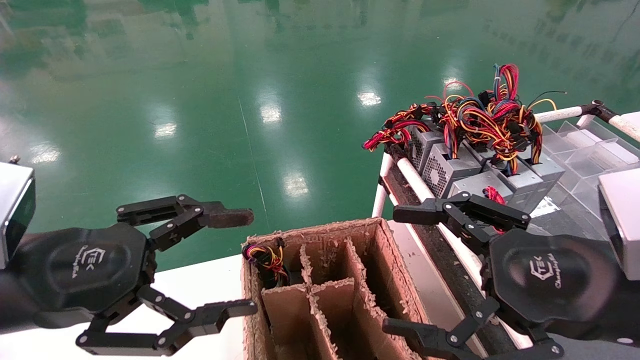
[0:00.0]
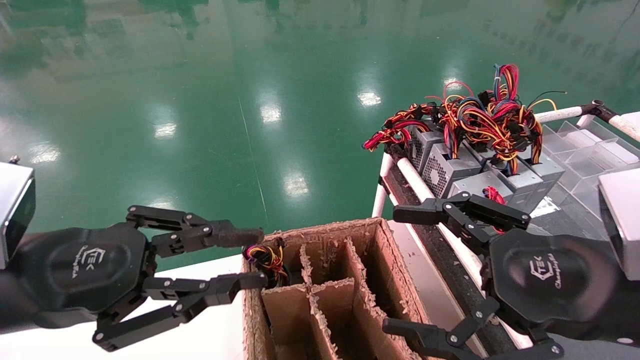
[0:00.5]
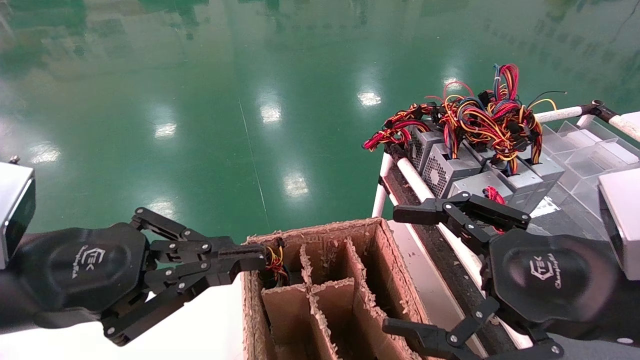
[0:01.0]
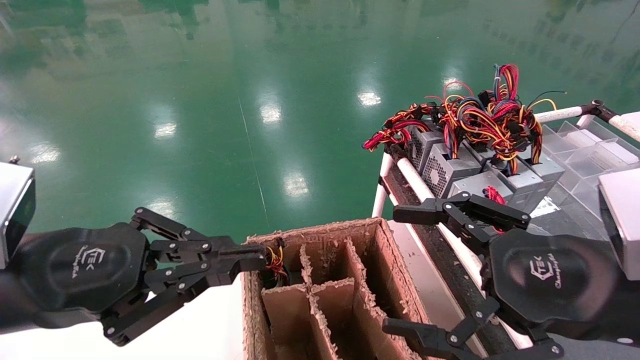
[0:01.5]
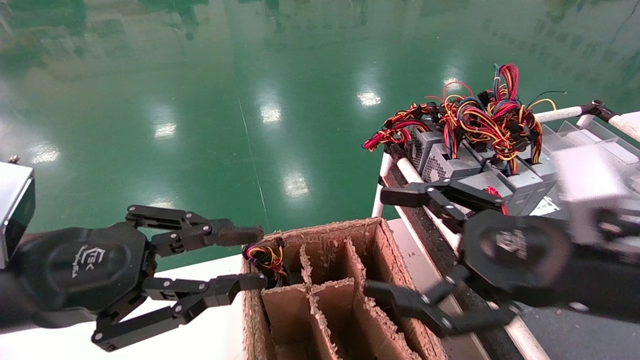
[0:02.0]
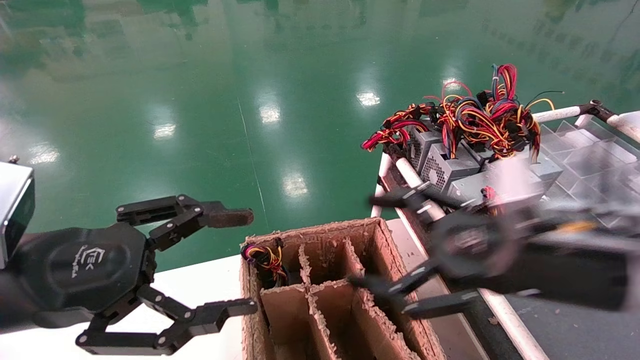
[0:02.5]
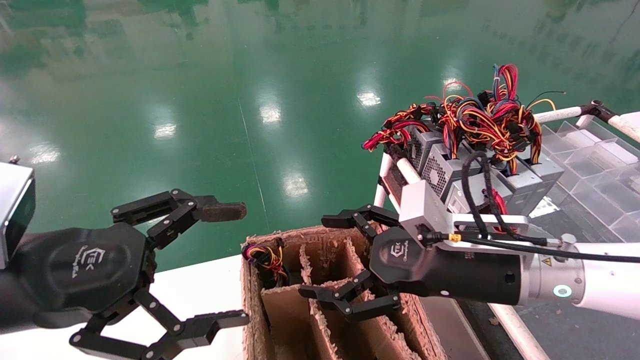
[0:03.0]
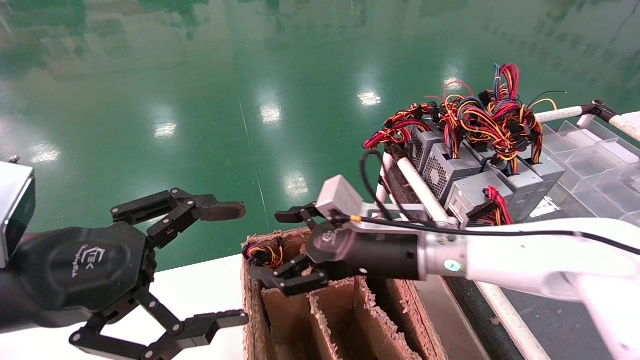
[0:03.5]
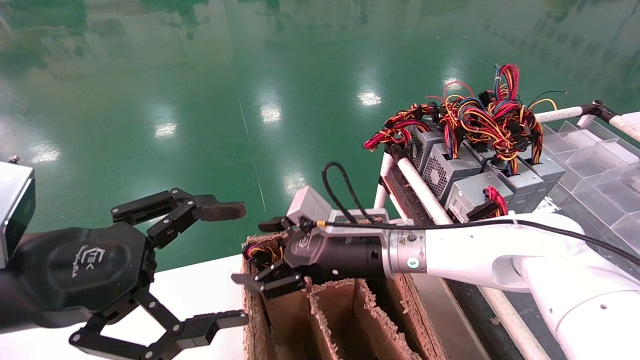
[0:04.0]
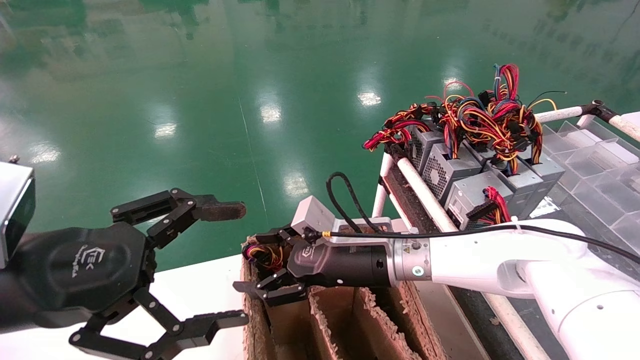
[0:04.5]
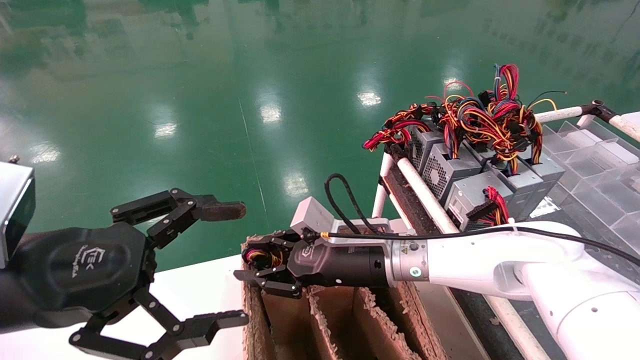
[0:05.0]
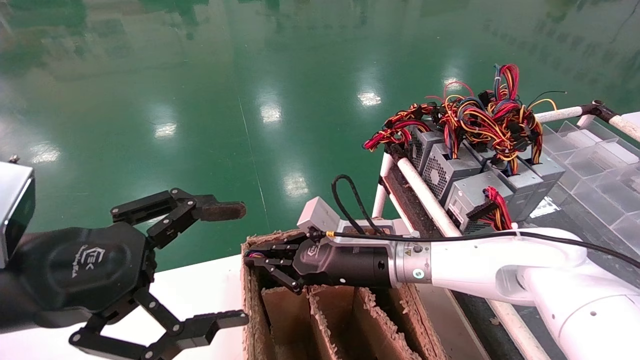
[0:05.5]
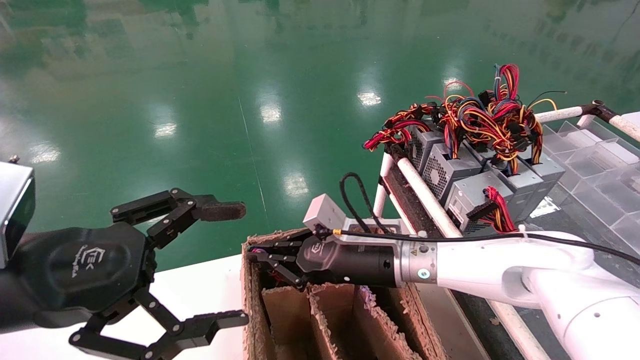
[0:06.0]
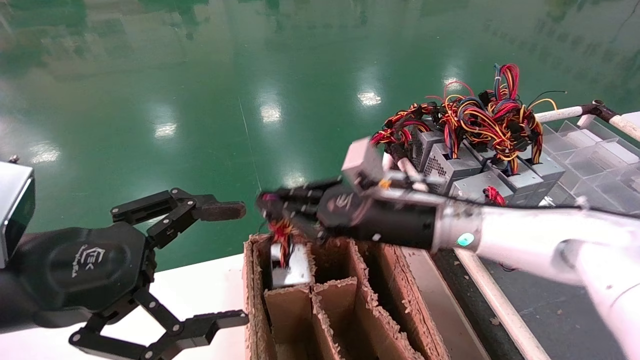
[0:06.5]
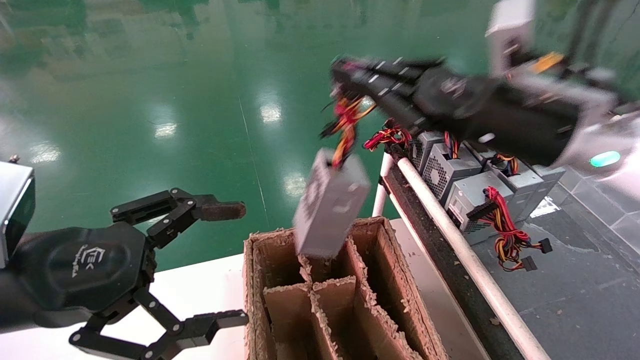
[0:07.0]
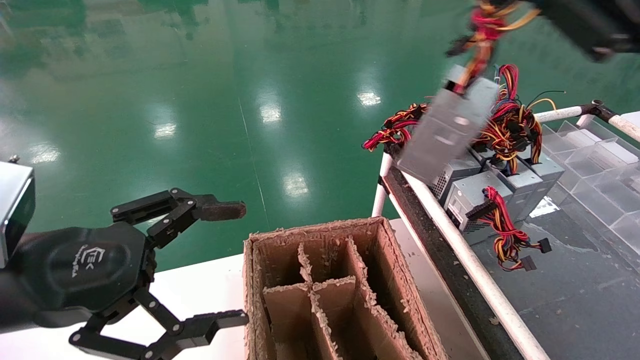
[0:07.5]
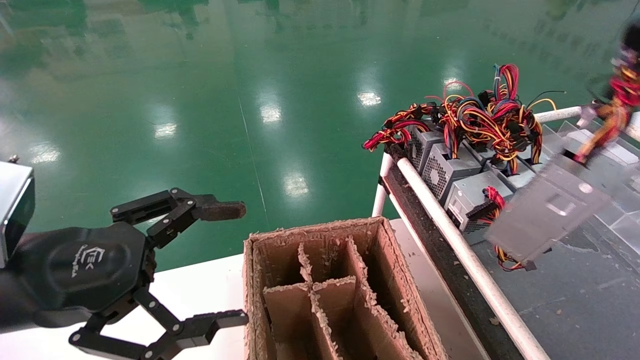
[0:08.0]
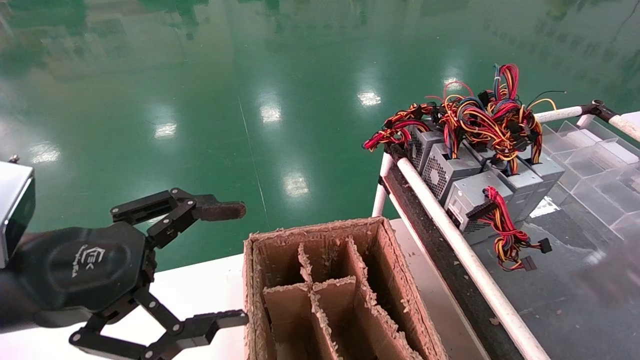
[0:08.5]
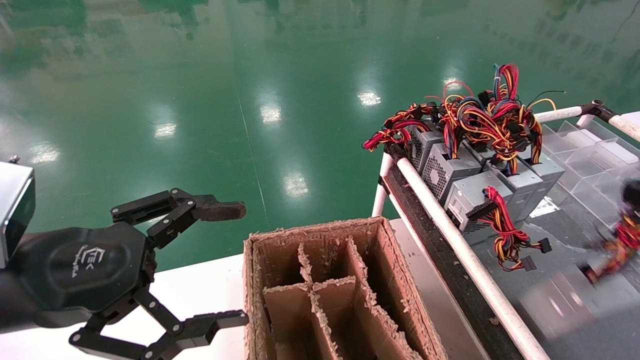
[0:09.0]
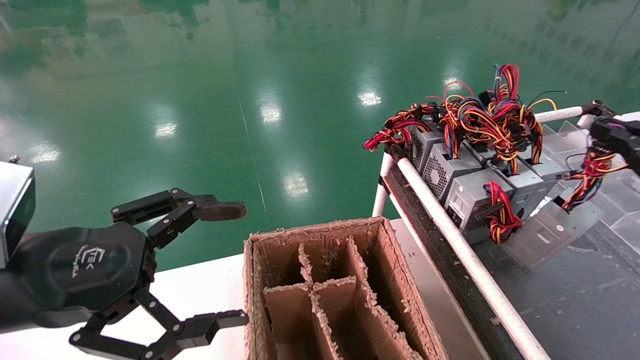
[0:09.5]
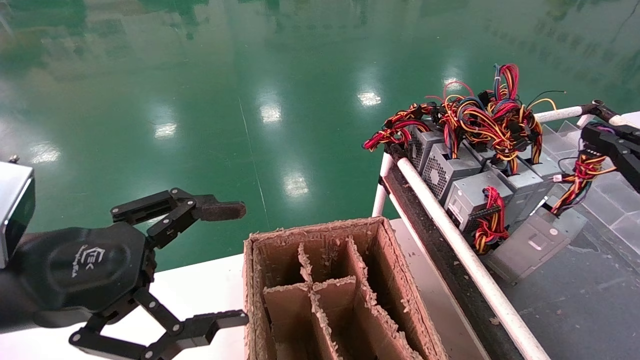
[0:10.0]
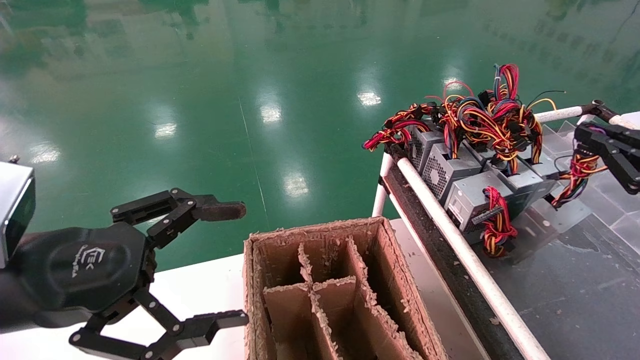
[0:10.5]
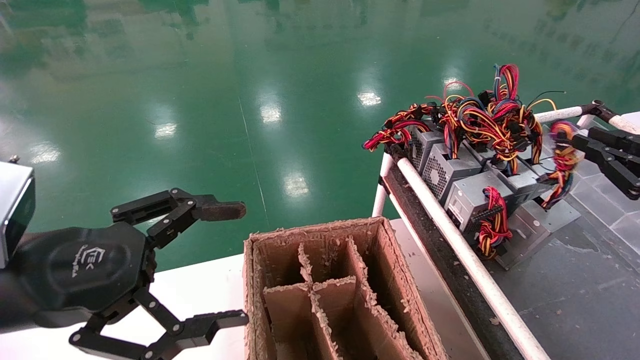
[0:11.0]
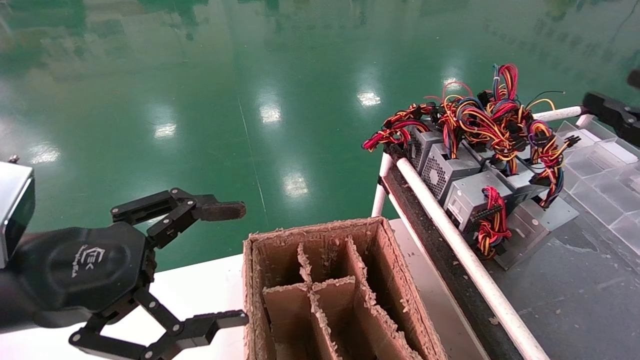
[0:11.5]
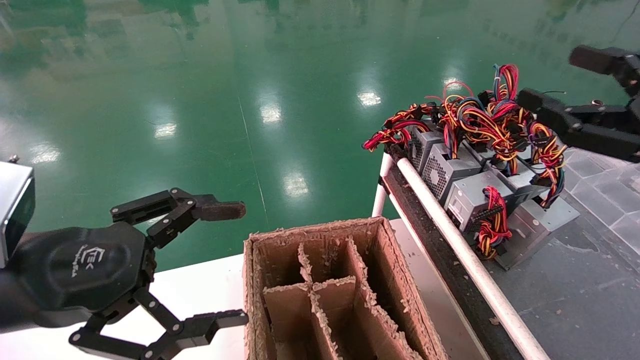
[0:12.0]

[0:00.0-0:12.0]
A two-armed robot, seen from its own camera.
Step, 0:01.5 to 0:05.5: Grab and lift the power supply from the large box.
Step, 0:06.0 to 0:11.0: Place the power supply on the operating table.
0:00.0 to 0:02.0: The left gripper closes.
0:02.0 to 0:04.0: The right gripper shifts some 25 cm to the left, forward and downward; the left gripper opens up.
0:04.0 to 0:06.0: The right gripper closes up.
0:06.0 to 0:08.0: The right gripper heads to the right, backward and upward, covering approximately 50 cm.
0:08.0 to 0:10.0: The right gripper travels downward and forward by some 15 cm.
0:10.0 to 0:12.0: The right gripper is displaced to the left by roughly 5 cm, and opens its fingers.

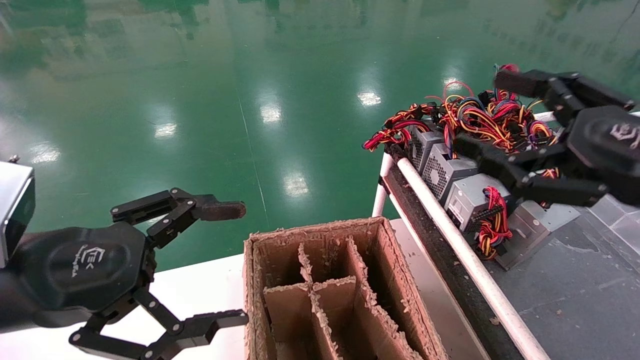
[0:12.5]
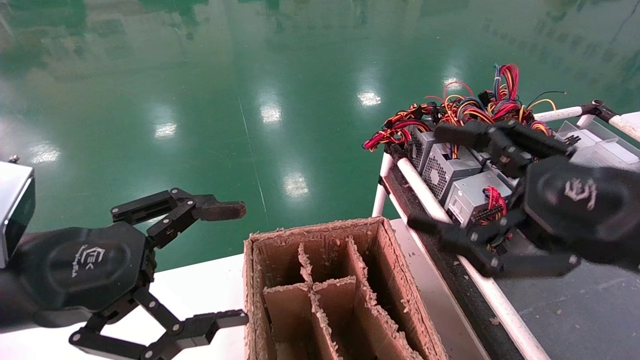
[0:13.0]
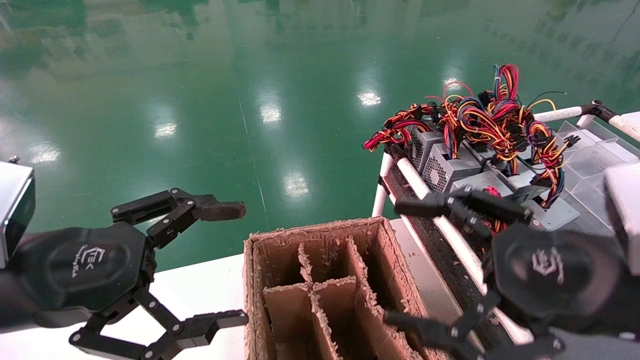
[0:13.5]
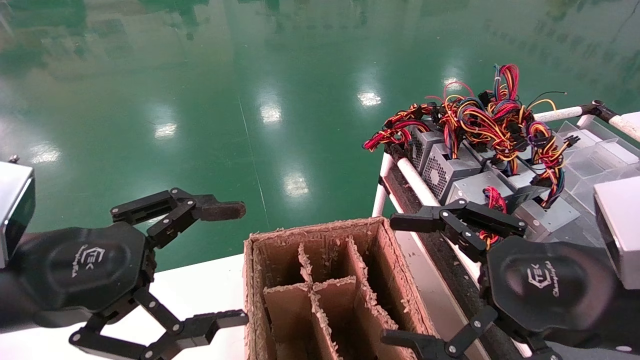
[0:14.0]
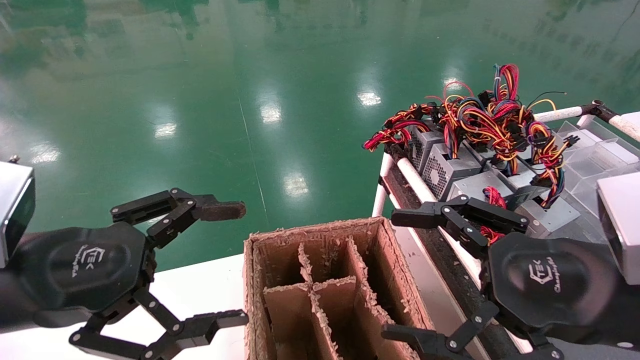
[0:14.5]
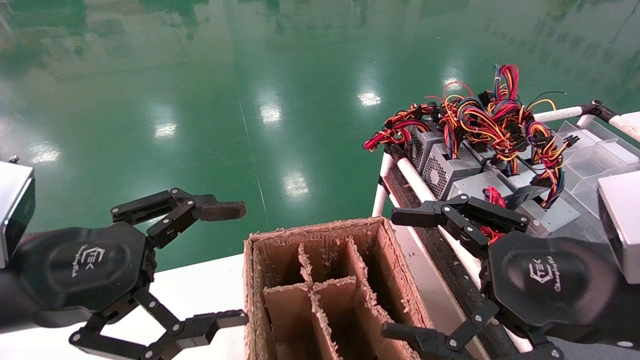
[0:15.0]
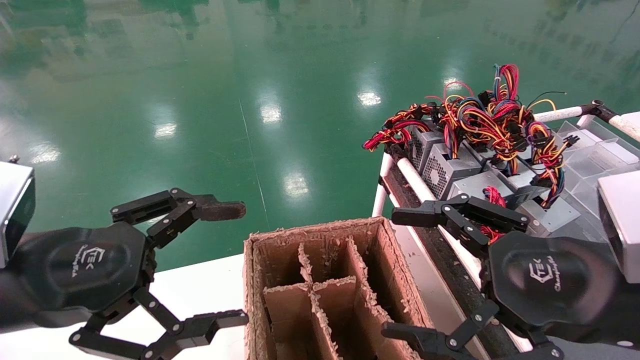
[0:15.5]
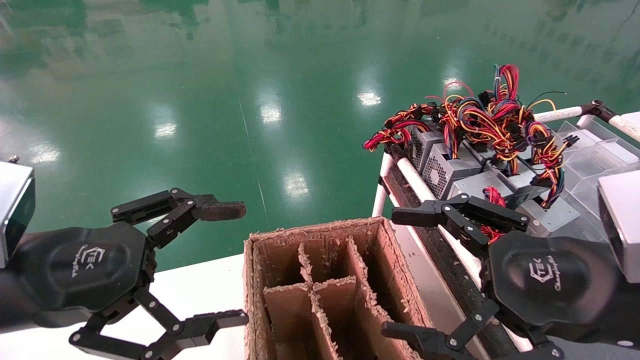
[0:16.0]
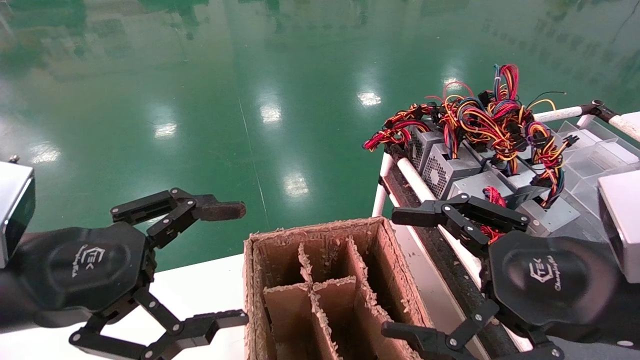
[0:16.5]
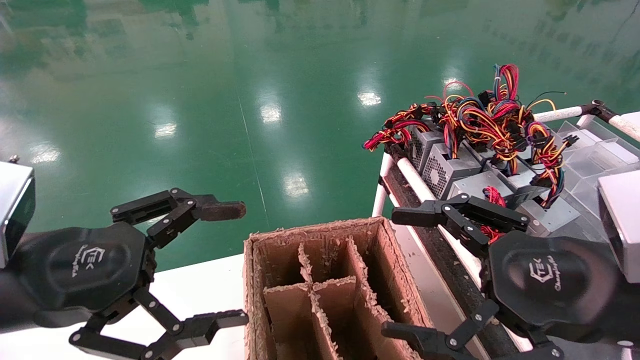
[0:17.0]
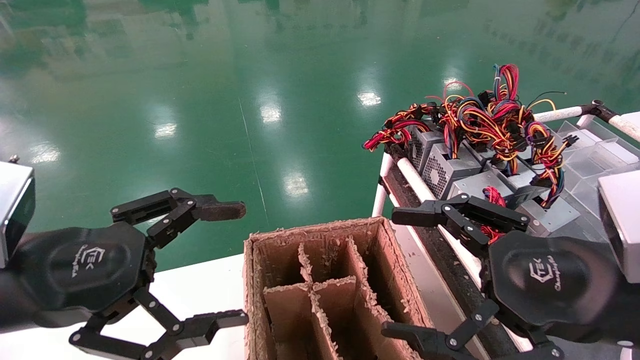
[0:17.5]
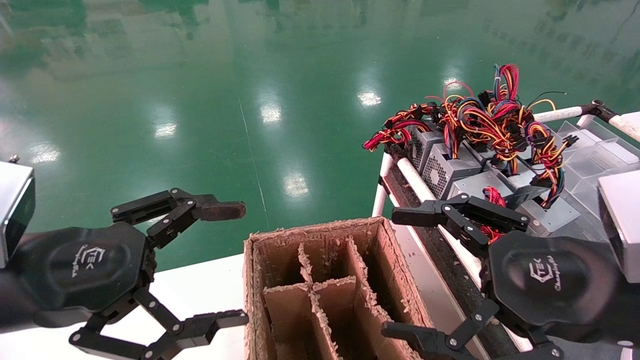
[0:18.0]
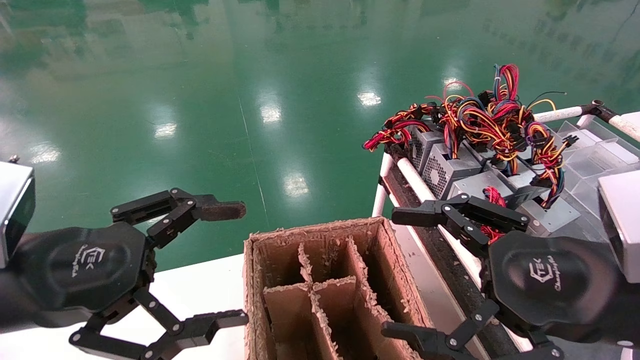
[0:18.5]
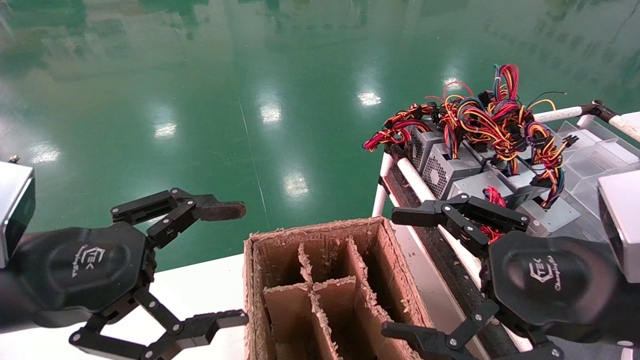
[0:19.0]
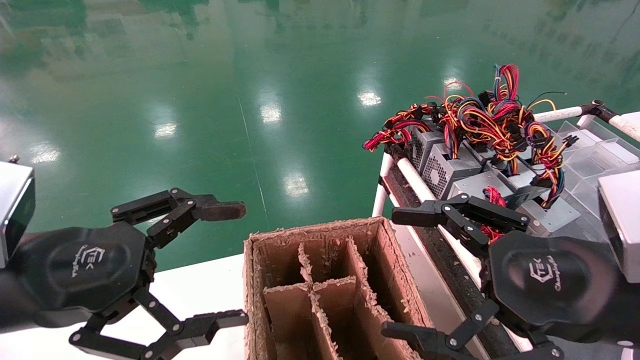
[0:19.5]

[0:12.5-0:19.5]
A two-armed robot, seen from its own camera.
0:12.5 to 0:14.5: The right gripper is displaced downward and to the left by roughly 10 cm.
0:14.5 to 0:19.5: The two grippers keep their place.
